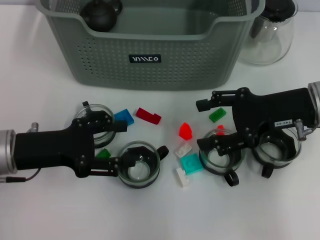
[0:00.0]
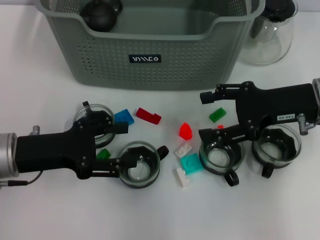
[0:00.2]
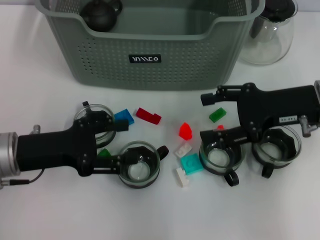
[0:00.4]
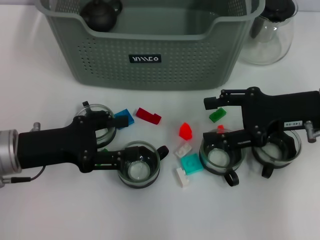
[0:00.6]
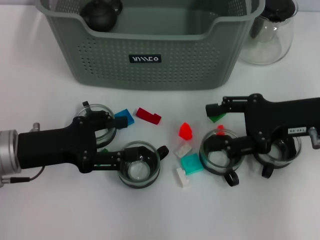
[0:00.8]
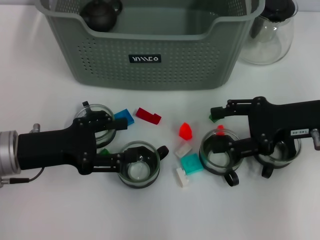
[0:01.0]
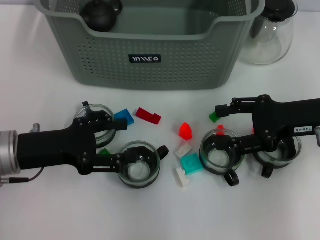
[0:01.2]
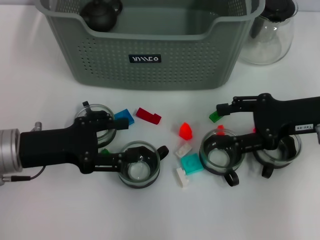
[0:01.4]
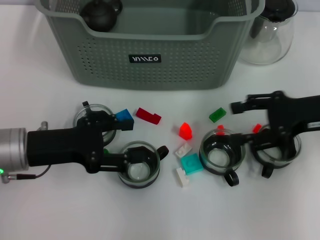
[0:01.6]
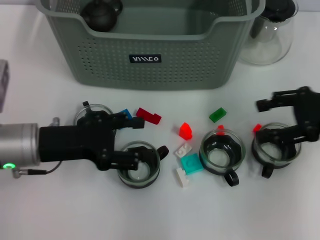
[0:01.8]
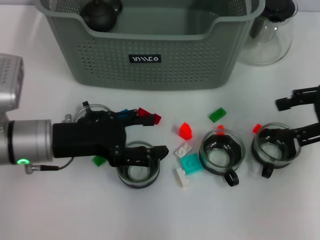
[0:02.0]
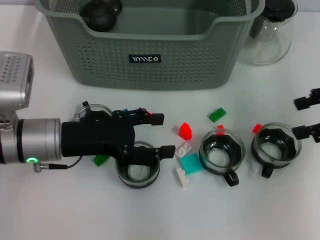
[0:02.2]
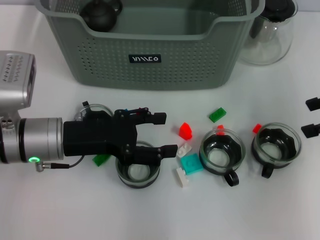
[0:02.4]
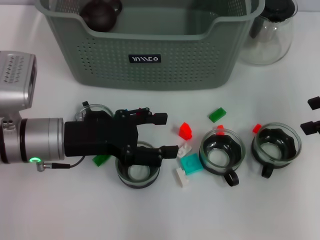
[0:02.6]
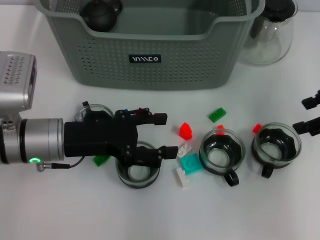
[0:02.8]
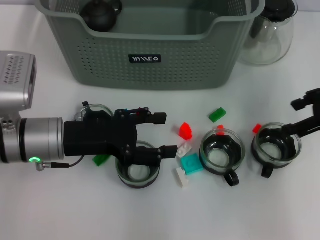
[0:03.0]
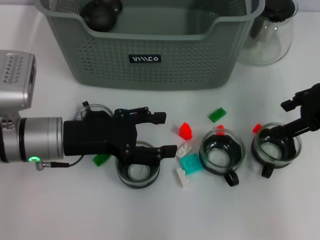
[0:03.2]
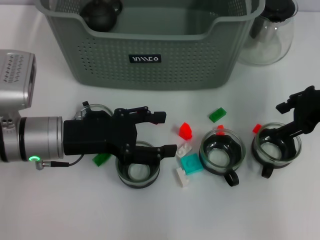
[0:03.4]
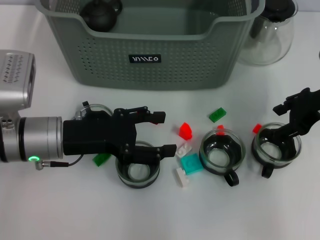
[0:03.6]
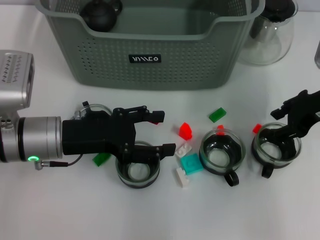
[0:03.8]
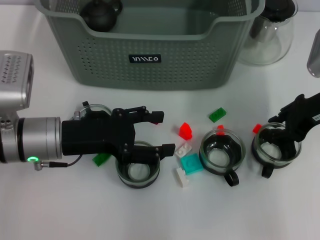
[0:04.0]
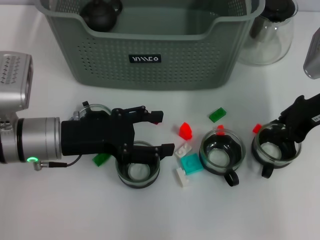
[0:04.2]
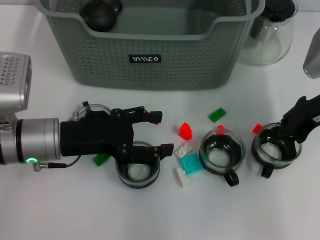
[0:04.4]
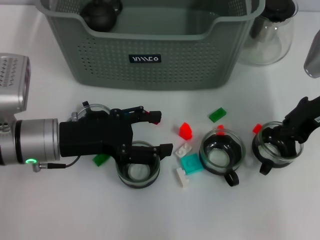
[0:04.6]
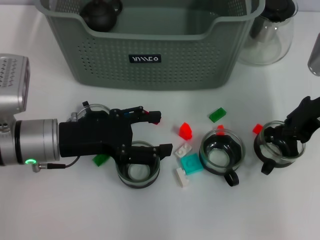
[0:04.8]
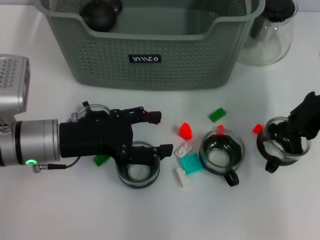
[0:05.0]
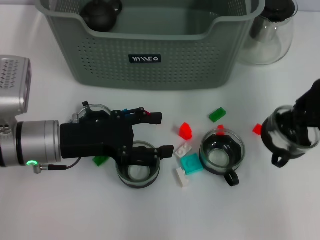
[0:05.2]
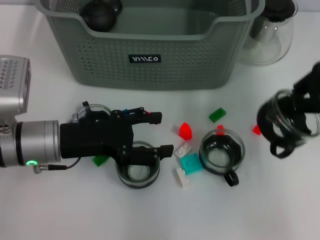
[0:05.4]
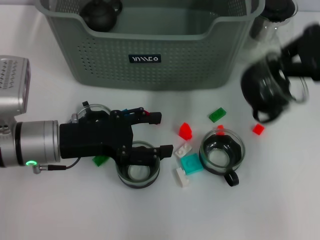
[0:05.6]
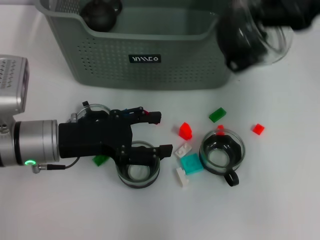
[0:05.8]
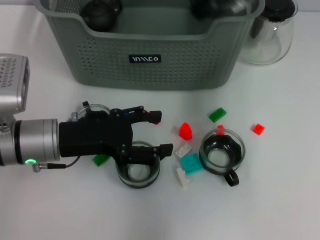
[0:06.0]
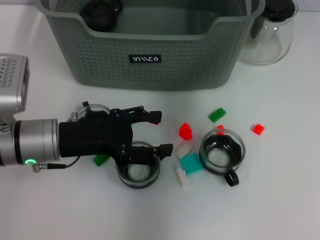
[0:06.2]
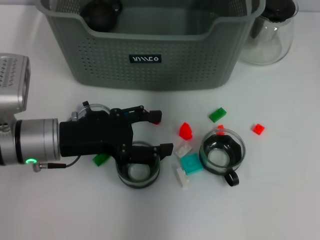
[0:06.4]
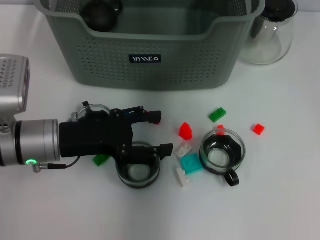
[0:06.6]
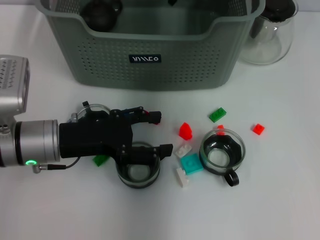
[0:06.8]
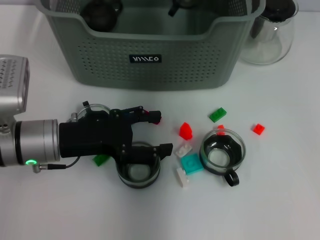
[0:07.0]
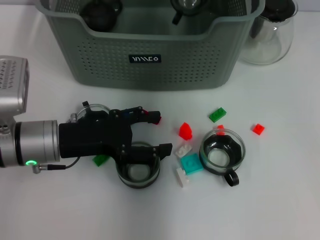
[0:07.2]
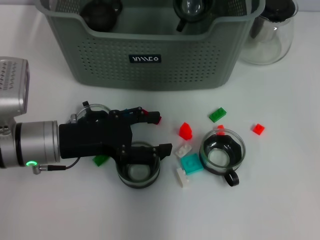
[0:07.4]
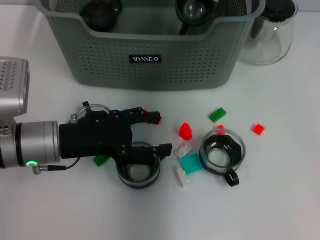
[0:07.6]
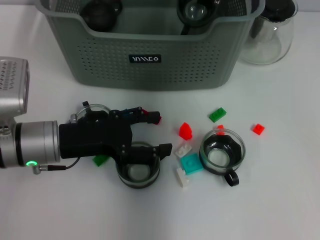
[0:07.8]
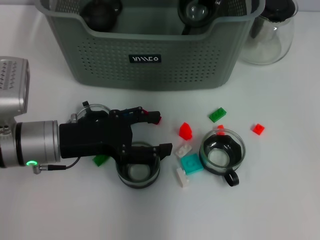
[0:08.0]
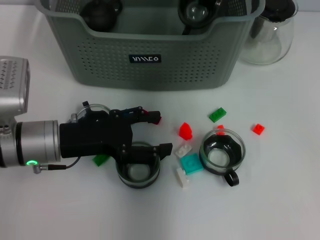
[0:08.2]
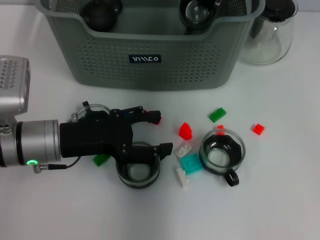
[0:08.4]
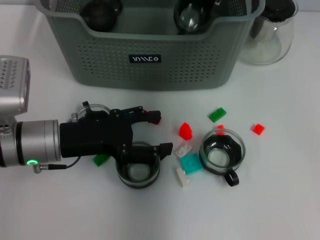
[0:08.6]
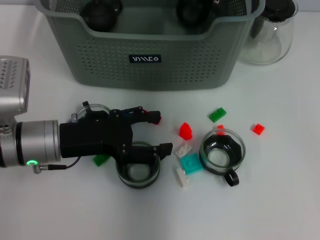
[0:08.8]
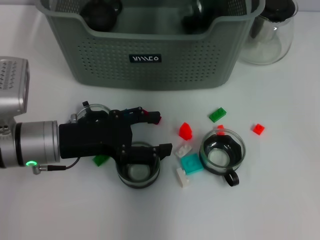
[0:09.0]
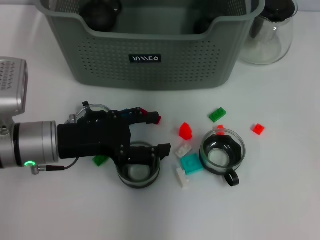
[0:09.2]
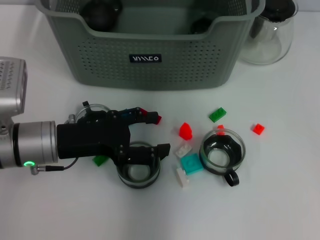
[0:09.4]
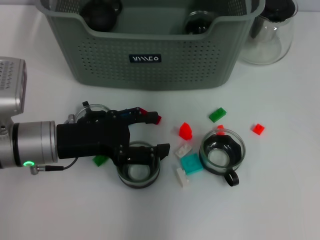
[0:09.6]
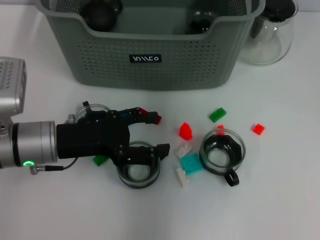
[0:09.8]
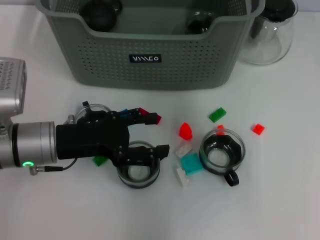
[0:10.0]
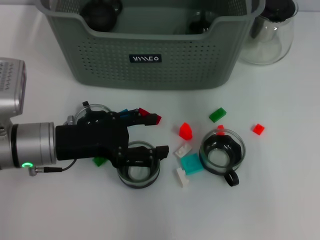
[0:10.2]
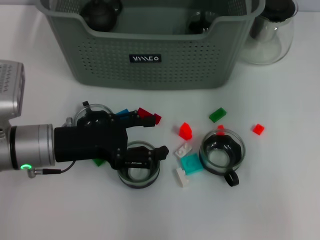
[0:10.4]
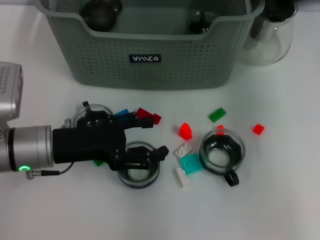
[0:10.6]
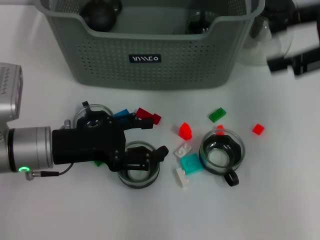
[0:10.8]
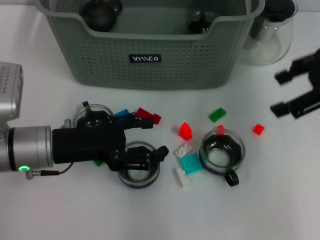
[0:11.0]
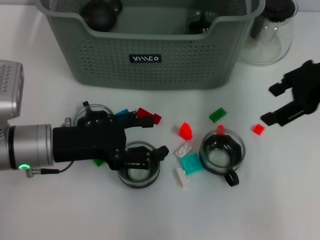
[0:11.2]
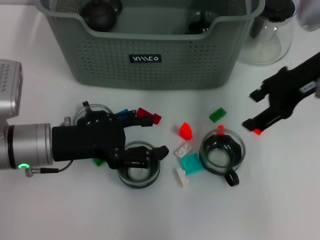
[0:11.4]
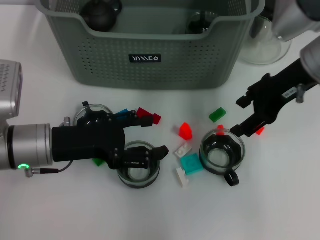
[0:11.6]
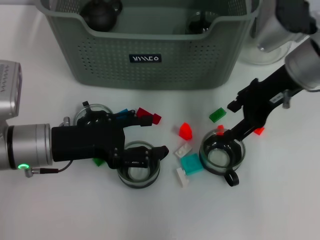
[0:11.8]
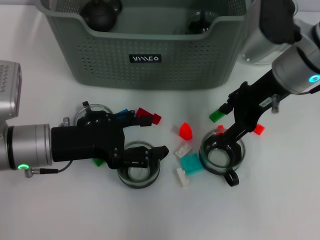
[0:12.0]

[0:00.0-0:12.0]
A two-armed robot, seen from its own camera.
Task of the whole recording: pick up the teacup on the table and place it into the storage bin, pick up the block on the table and place it into the storage bin.
Step, 0:00.0 to 0:04.4: Grasp the cup with right gripper.
Step, 0:04.6 to 0:08.6: Place the cup in the storage box with right gripper.
0:00.0 to 0:01.6: There are only small adjustments of the grippers.
0:03.0 to 0:04.4: The right gripper moves roughly 5 cm, and closes its fingers.
0:04.4 to 0:06.0: The right gripper travels upward by some 20 cm.
0:06.0 to 0:07.6: The right gripper is displaced downward, to the left and forward by some 20 cm.
0:09.0 to 0:10.4: The right gripper moves to the right, backward and upward, some 20 cm, and opens its fingers.
0:10.4 to 0:12.0: The right gripper moves downward, approximately 15 cm.

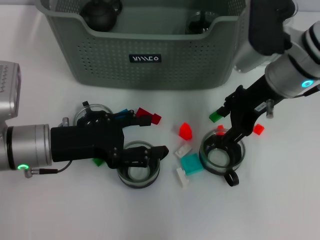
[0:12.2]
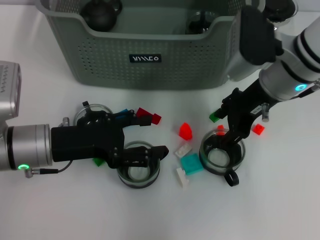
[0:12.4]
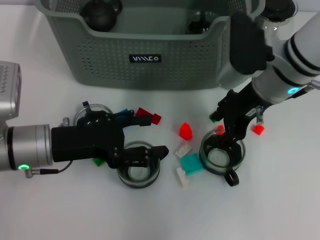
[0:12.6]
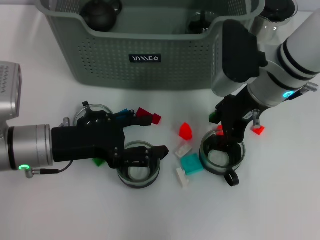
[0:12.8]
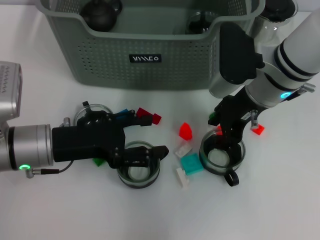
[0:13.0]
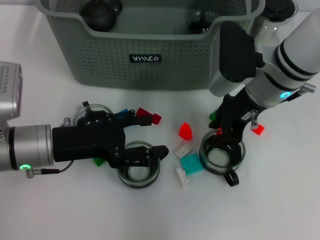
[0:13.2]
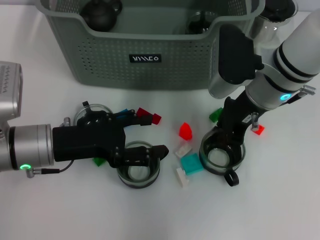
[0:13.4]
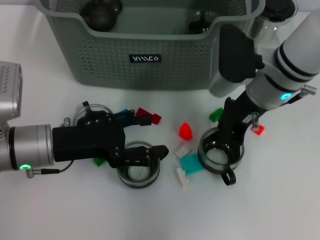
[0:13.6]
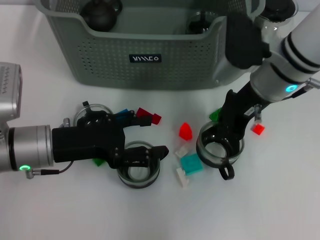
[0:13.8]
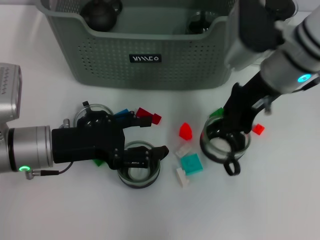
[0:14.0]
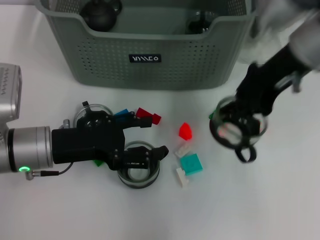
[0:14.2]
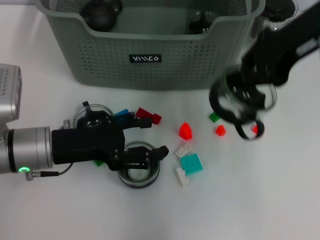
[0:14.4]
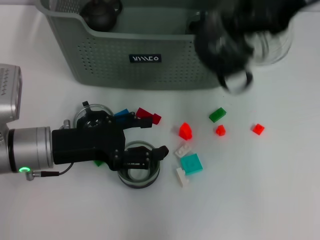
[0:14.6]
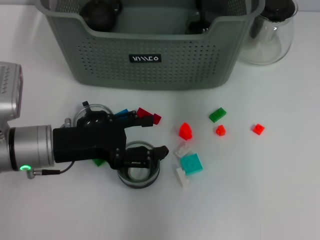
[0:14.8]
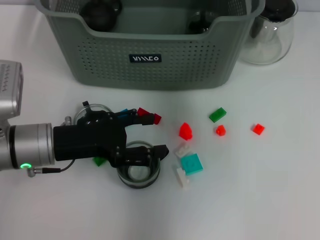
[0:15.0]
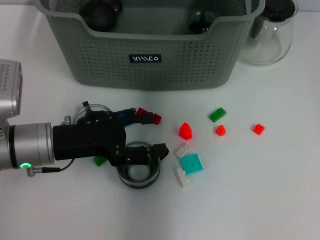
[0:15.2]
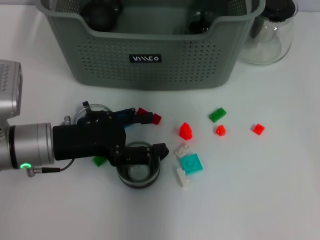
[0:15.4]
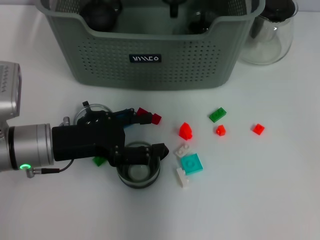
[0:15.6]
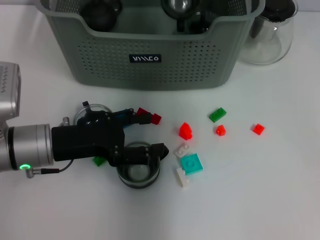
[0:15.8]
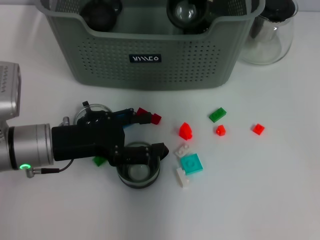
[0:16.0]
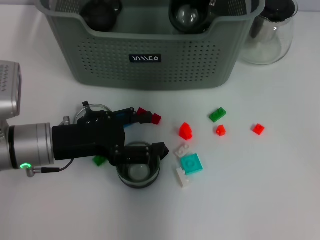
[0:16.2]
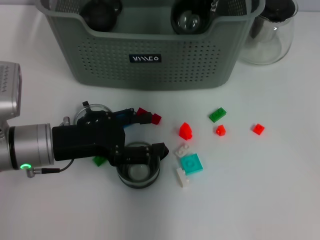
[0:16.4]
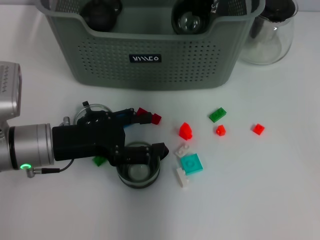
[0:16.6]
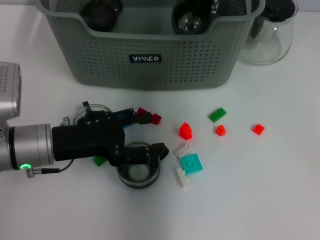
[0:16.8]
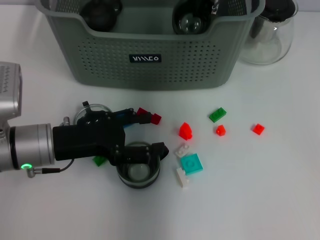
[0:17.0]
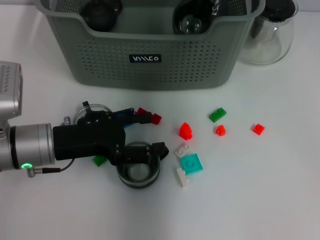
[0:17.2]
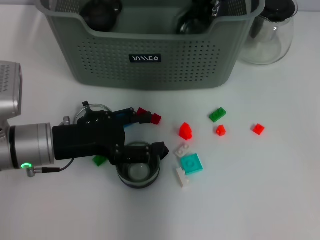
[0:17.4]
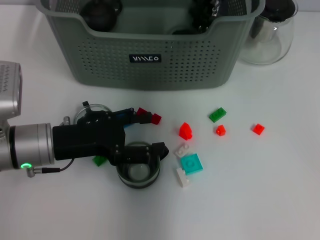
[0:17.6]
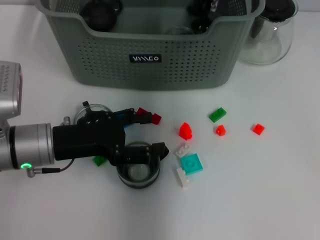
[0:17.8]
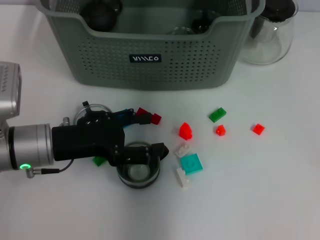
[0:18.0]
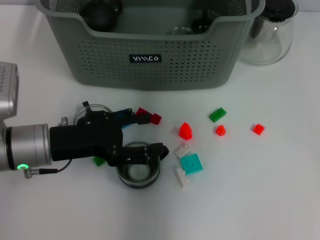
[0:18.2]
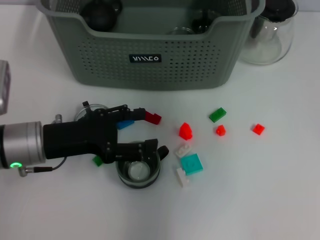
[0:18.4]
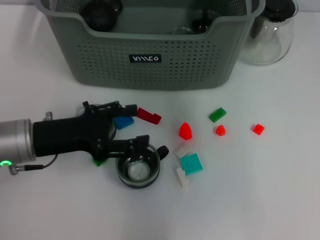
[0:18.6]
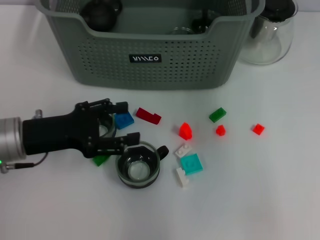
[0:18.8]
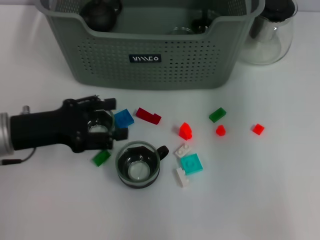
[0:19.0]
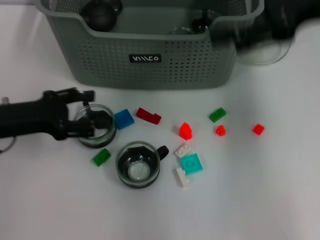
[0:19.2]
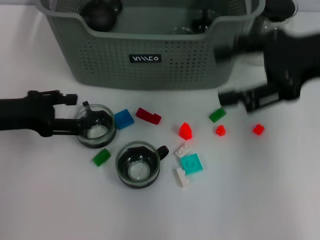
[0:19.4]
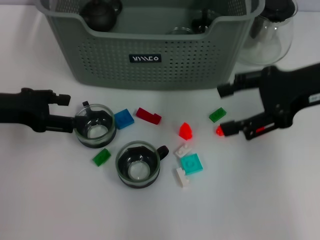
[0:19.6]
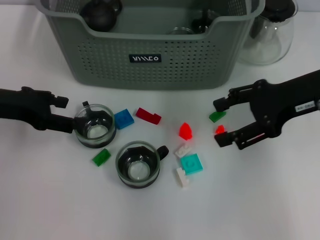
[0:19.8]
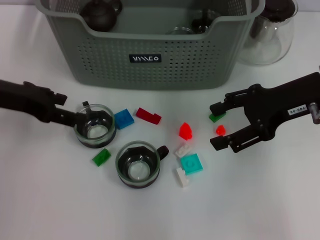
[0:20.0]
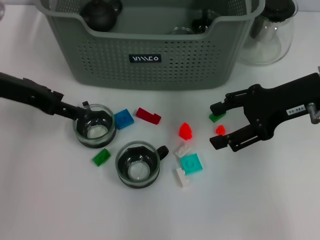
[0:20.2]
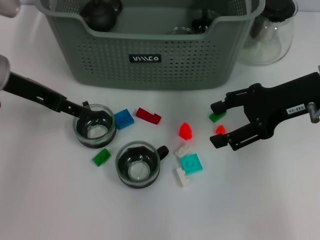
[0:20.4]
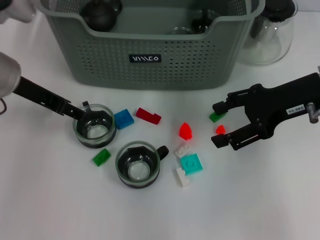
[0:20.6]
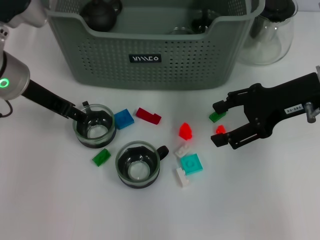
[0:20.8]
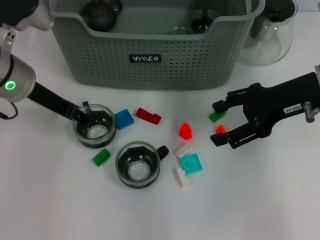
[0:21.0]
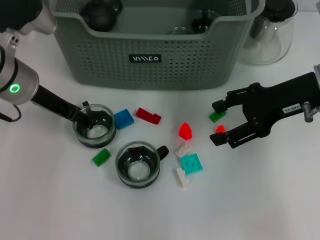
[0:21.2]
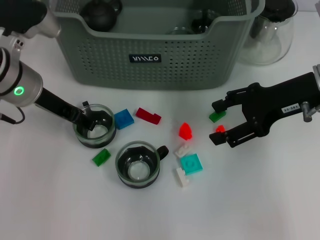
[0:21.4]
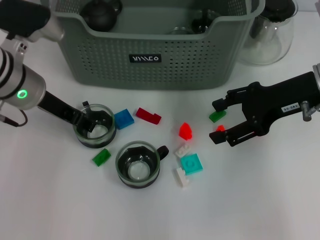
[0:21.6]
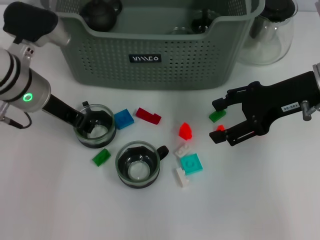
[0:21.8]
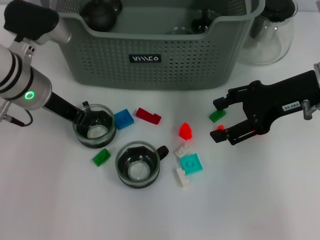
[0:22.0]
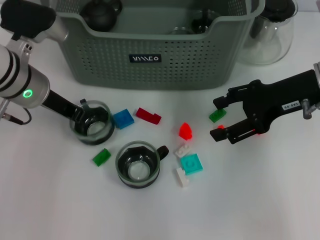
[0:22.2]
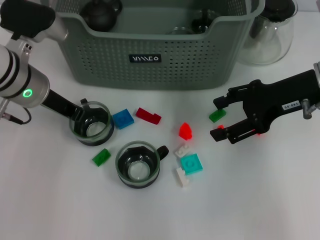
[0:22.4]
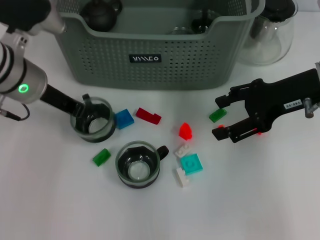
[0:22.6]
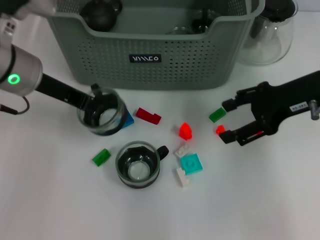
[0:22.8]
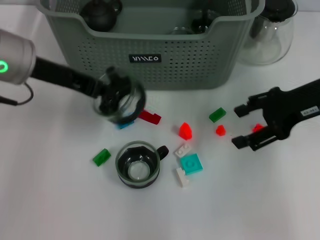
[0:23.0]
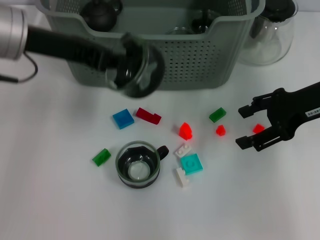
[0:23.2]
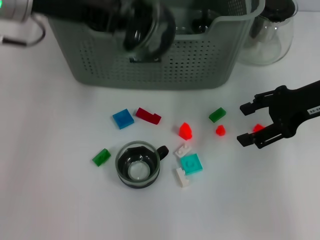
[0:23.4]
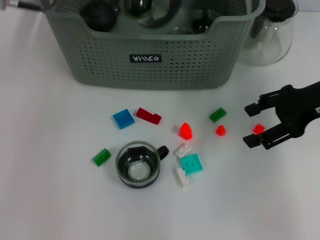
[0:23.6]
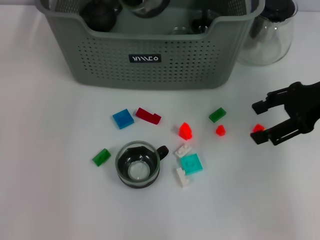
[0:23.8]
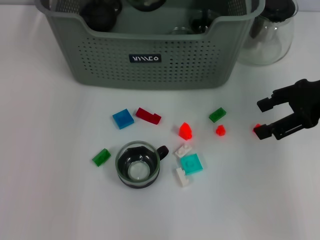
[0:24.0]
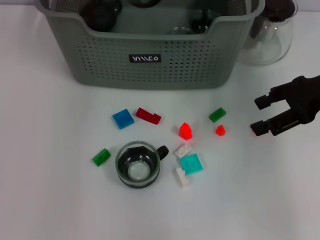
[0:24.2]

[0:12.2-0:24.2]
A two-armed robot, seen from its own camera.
Task of the whole recording: pick up the teacup on the table and place it into the storage bin, pick up the block on the table and place it into the storage bin.
Step, 0:13.8 to 0:17.6: Place the cup in the storage box with right gripper.
Step, 0:17.8 to 0:22.2: Grasp the cup with left gripper.
0:12.2 to 0:13.8: The right gripper closes up.
0:13.8 to 0:15.2: The right gripper goes some 20 cm upward and forward.
0:15.2 to 0:16.6: The right gripper travels downward by about 10 cm.
0:16.6 to 0:18.2: The right gripper moves upward, roughly 10 cm, and opens up.
0:18.2 to 0:19.8: The right gripper shifts some 25 cm to the right, backward and downward, and opens; the left gripper shifts about 10 cm upward and to the left.
0:19.8 to 0:21.2: The left gripper is displaced to the right by approximately 10 cm.
0:21.2 to 0:22.6: The left gripper closes.
0:22.6 to 0:24.2: The left gripper shifts some 15 cm forward, upward and to the right. The right gripper changes place by roughly 5 cm.
